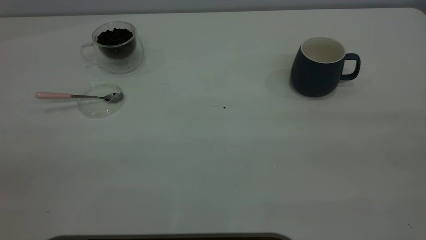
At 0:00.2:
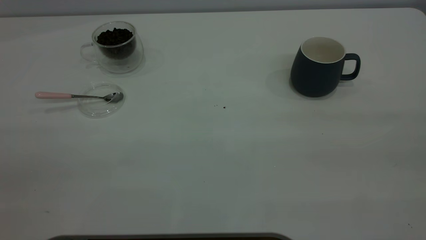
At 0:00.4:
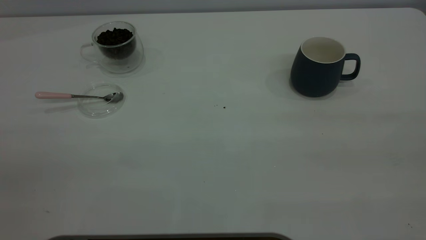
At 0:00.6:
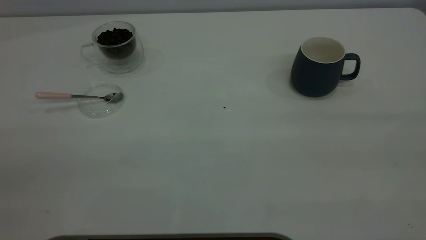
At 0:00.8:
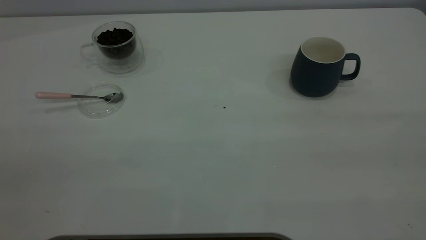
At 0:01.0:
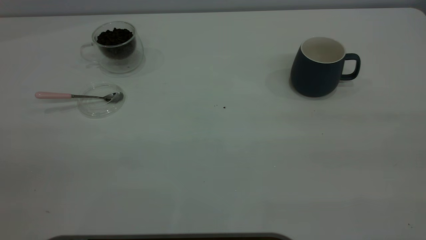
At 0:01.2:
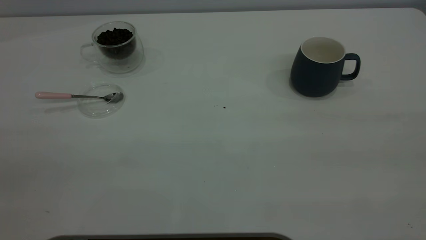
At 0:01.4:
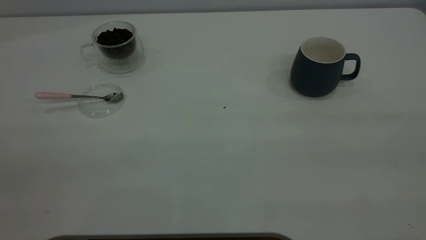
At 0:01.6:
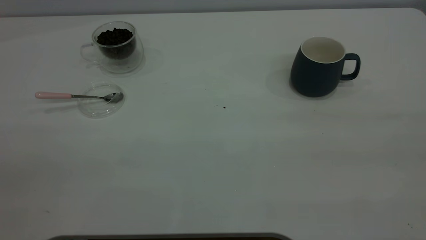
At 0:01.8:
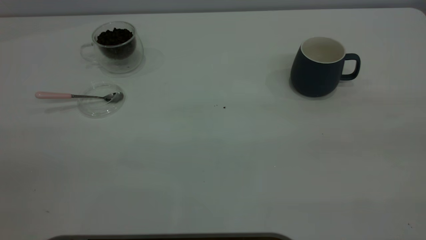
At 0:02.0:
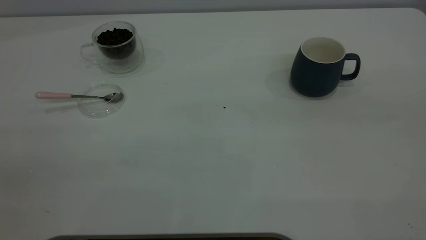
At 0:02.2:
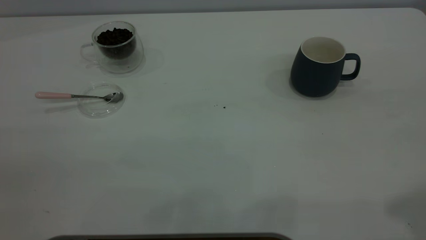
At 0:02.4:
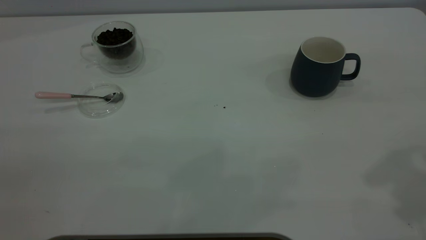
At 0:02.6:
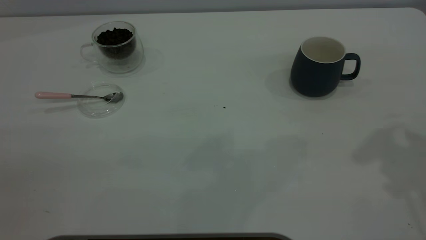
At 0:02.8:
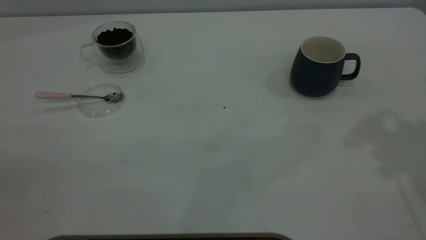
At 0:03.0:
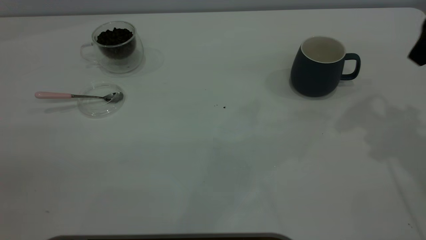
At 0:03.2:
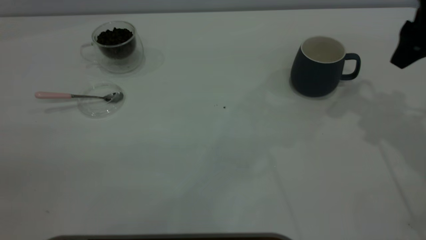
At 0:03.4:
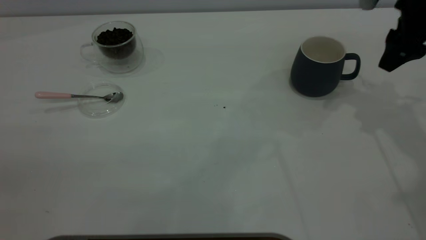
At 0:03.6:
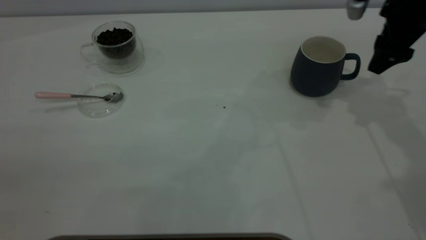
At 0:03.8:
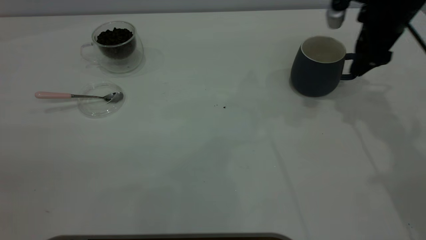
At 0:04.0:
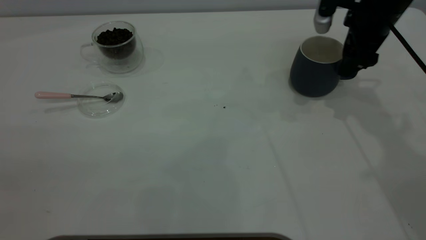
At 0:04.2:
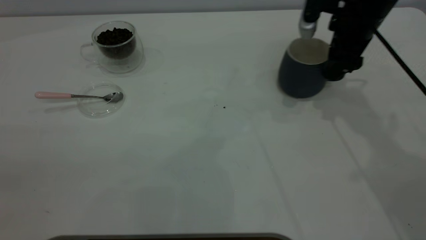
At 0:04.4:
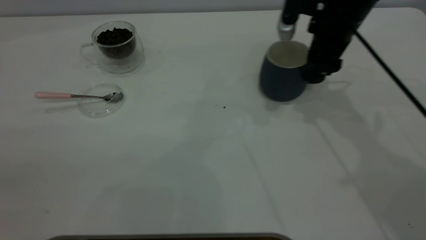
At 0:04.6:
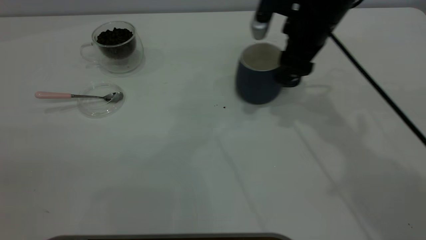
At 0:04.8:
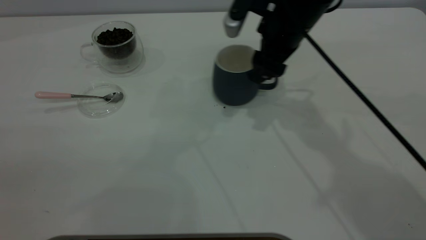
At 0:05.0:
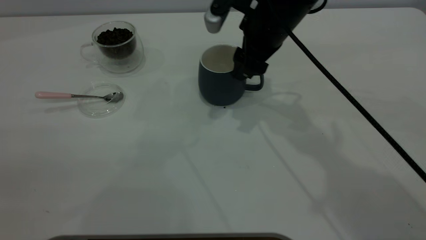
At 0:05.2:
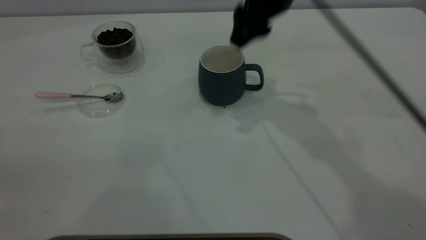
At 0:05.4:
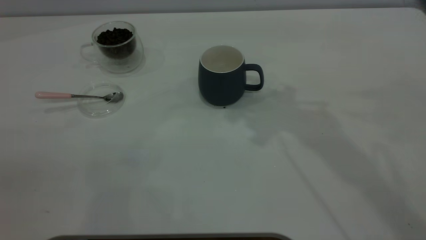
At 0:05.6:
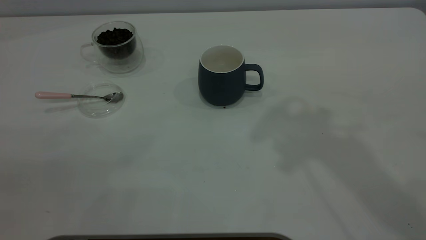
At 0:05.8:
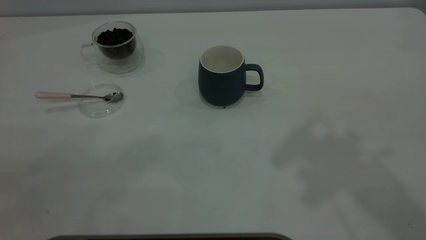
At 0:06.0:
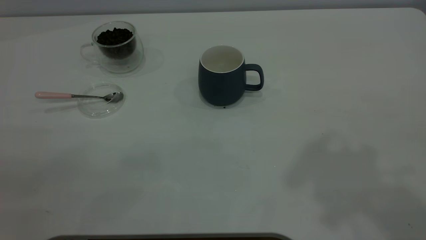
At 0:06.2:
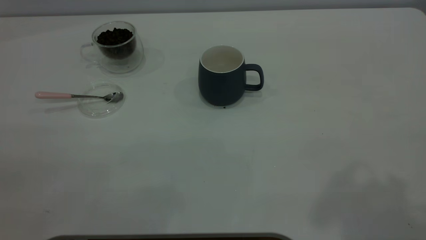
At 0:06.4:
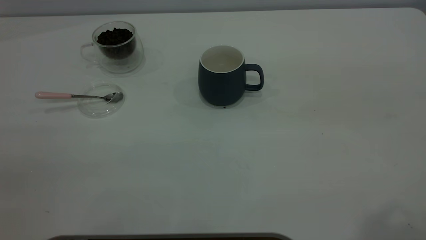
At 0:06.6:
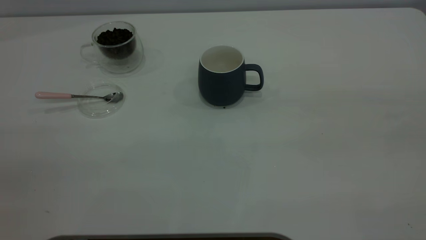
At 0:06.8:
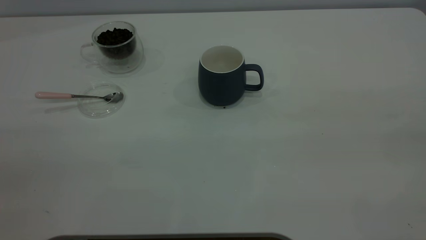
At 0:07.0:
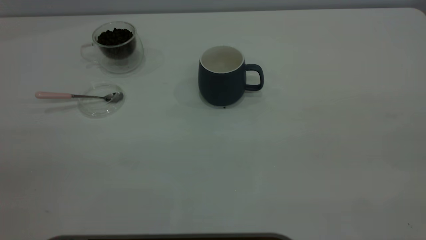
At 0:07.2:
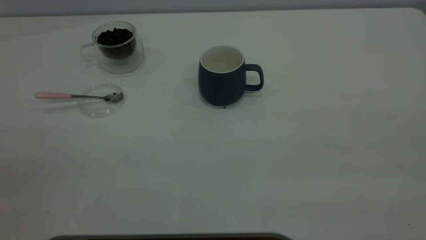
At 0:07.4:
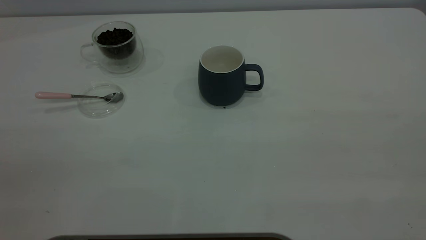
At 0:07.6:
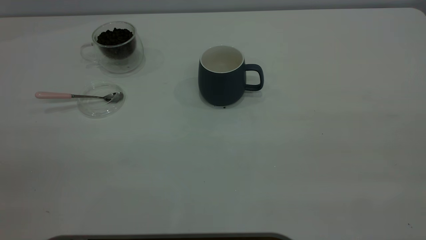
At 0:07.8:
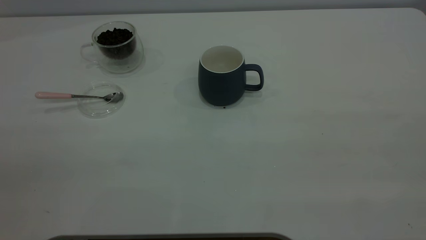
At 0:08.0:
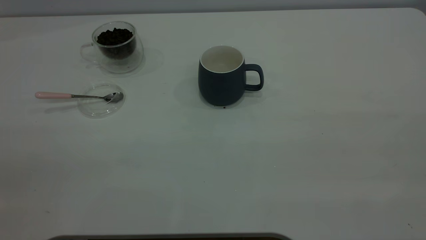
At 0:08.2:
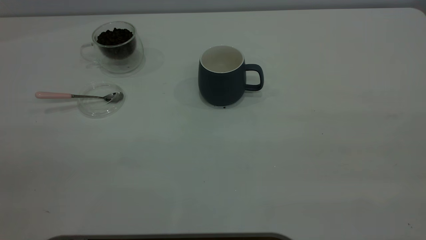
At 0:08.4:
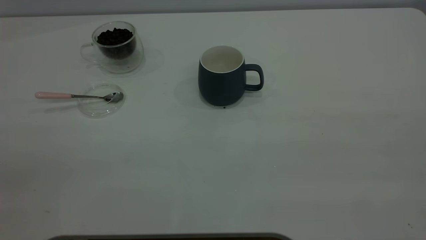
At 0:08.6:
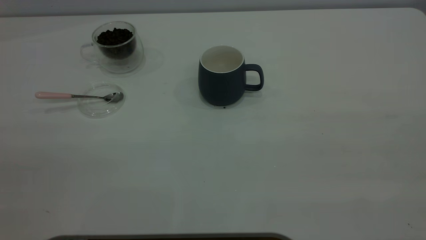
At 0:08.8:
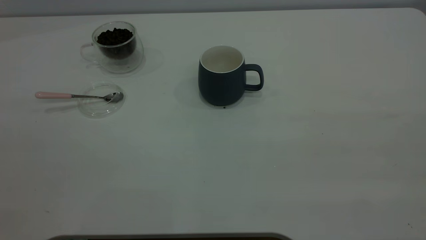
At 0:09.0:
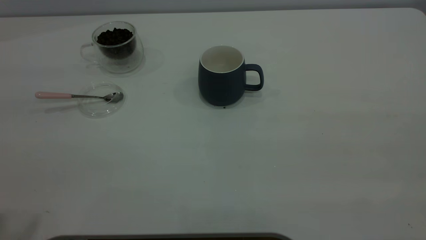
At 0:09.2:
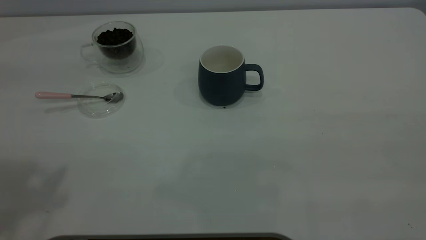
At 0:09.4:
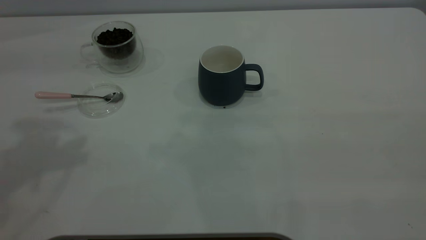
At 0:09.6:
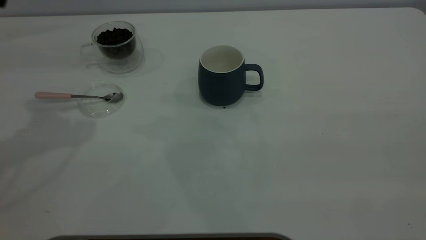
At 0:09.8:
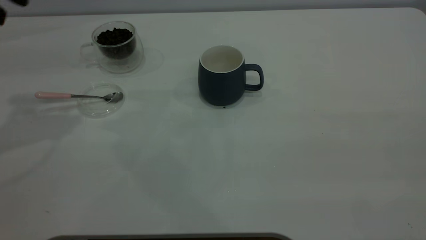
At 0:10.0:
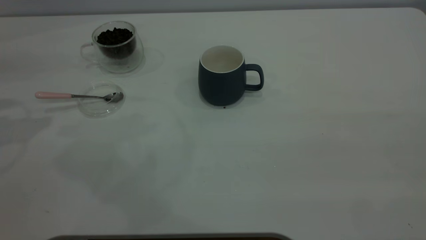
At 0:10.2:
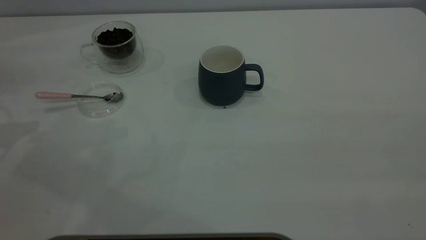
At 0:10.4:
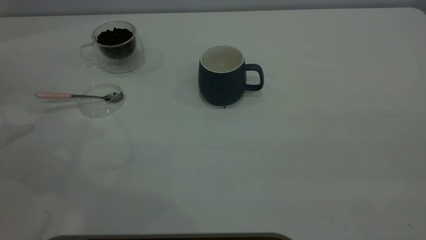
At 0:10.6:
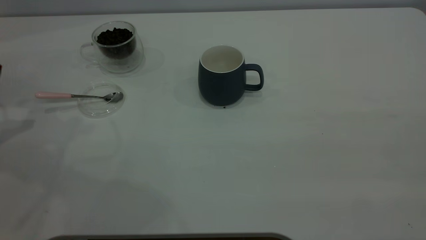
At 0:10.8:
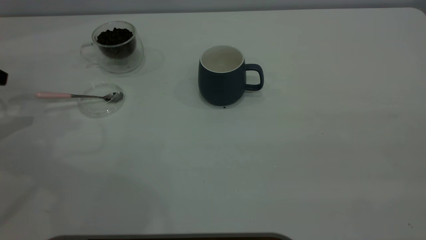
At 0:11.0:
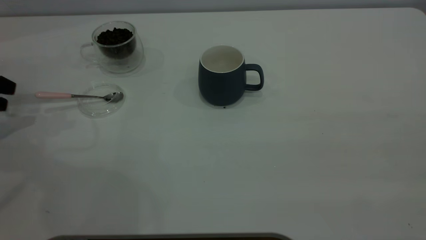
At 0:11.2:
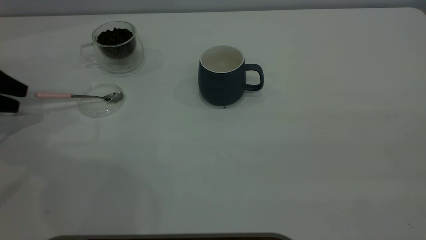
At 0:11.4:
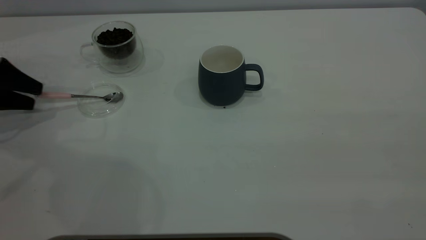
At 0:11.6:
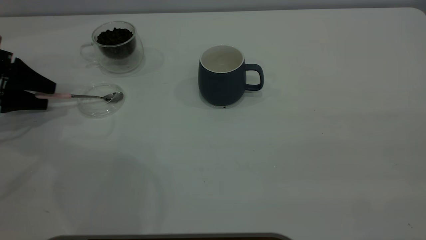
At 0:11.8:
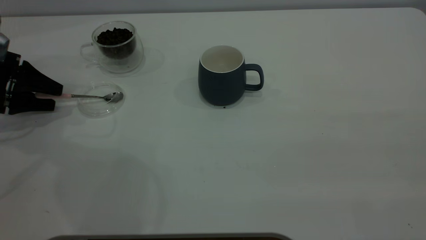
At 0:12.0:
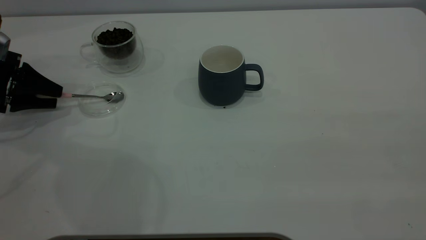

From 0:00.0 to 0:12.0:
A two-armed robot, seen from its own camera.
Task of the whole recording: the right gripper place the grey cup in the center of the table, the left gripper take the pink spoon from the cup lid and scoop out the coffee beans from the coffee cup and put them into the grey cup, the left gripper put the spoon back into the cup lid.
Step, from 0:00.0 to 0:05.0: Move the cup to the center of view.
From 0:00.0 to 0:01.6: The two grippers keep their place.
From 0:03.0 to 0:04.4: The right gripper heads to the left, downward and forward, covering approximately 15 cm.
From 0:04.4 to 0:06.0: The right gripper is displaced upward and backward by some 40 cm.
From 0:10.4 to 0:12.0: The left gripper is displaced downward and forward by roughly 10 cm, and closes up.

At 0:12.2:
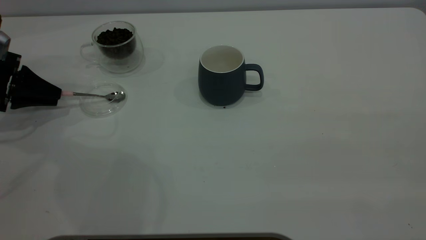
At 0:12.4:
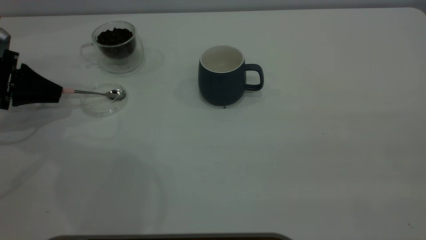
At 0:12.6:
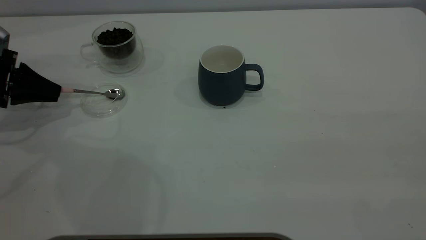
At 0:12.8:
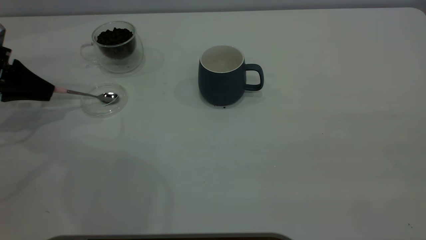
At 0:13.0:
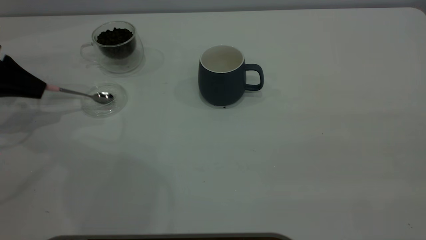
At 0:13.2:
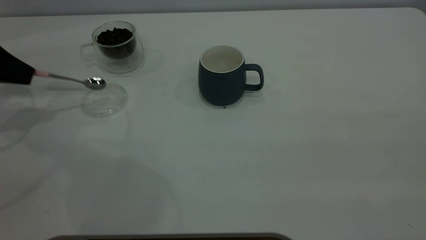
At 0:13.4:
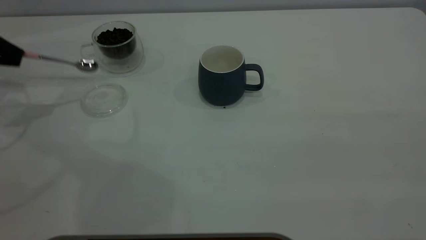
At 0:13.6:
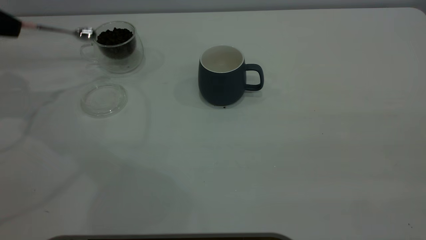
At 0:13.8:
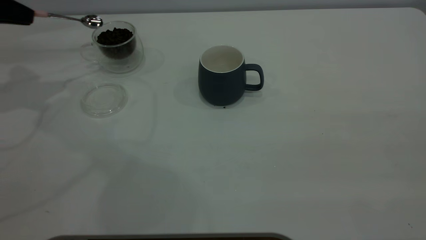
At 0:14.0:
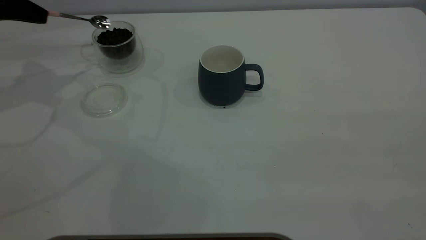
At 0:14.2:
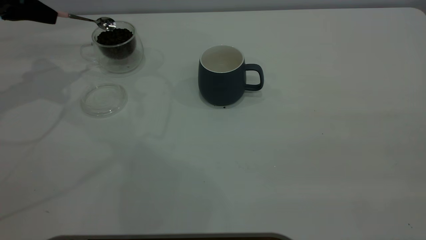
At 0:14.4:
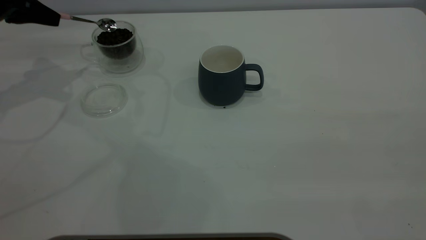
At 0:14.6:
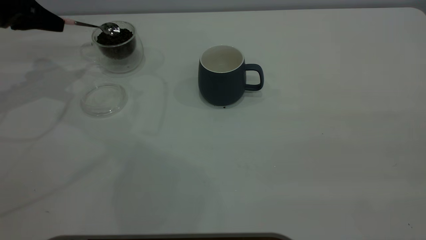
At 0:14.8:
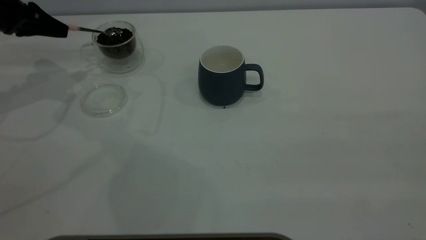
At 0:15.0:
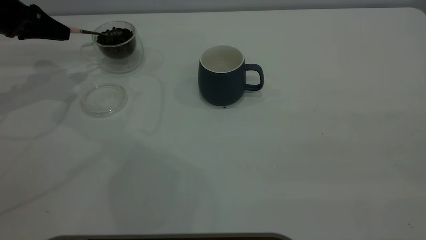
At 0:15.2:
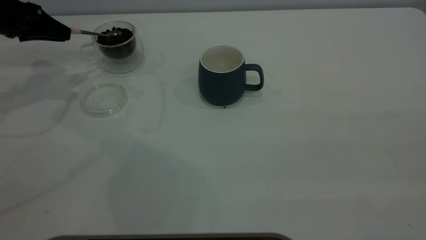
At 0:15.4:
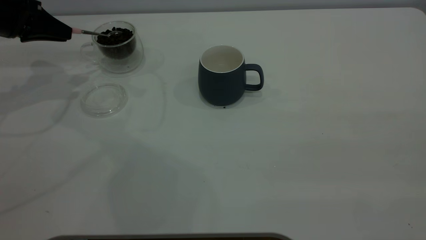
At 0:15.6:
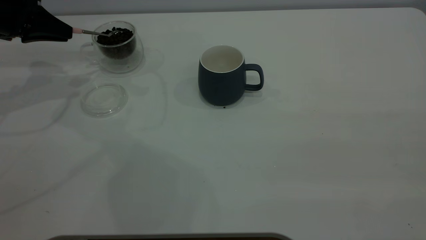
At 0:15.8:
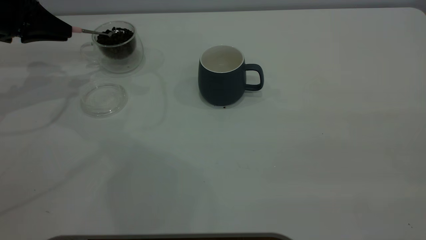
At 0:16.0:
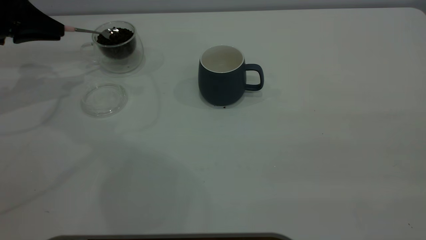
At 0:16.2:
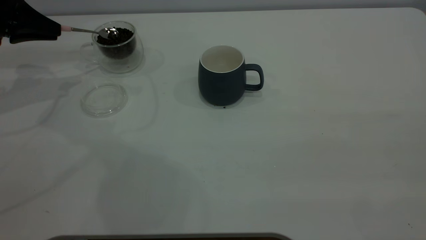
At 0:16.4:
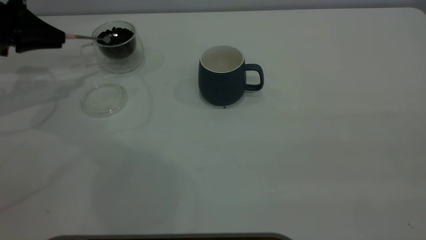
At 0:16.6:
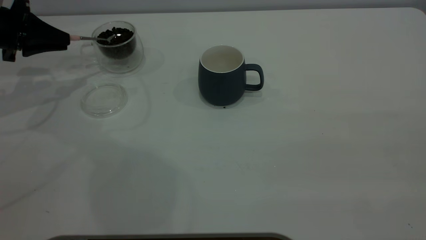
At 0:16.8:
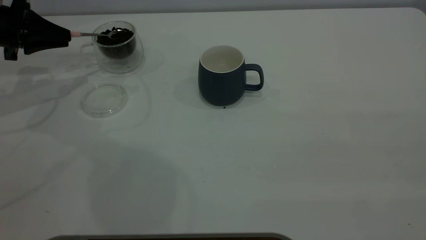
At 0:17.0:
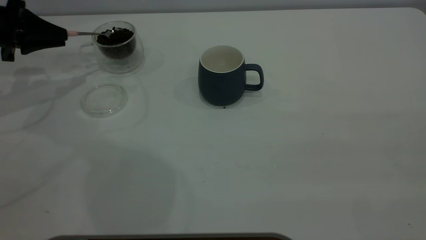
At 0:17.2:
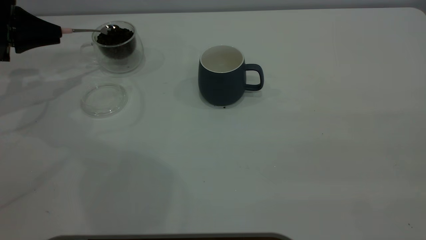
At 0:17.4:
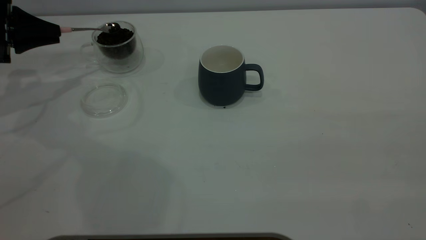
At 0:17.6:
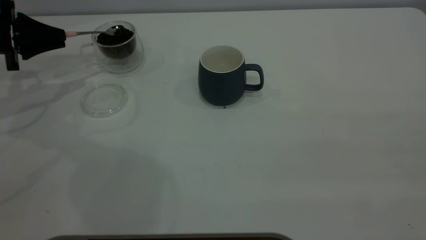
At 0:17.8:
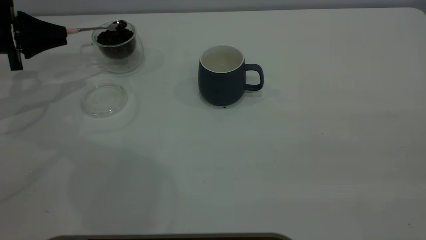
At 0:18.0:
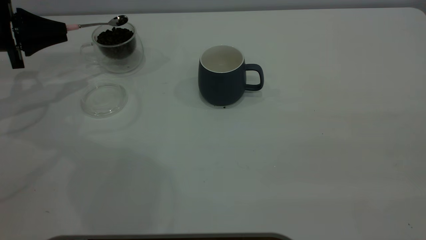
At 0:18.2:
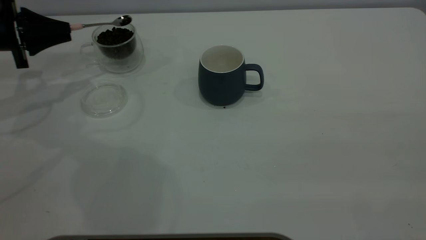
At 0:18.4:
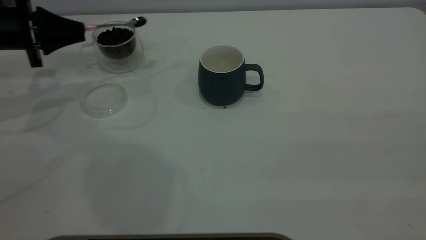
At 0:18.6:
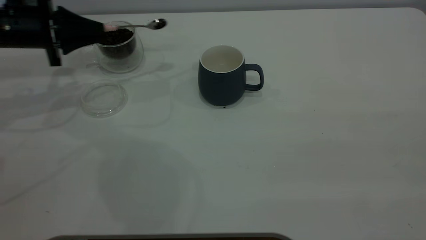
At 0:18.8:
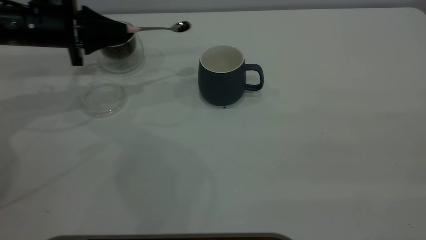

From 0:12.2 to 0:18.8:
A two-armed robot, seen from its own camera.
Task of the whole recording: the right gripper place the grey cup in the center of the table, the left gripper take the pink spoon from the cup lid and scoop out the coffee beans from the coffee cup and put them into the grey cup, the left gripper put the spoon back into the cup lid.
From 0:12.2 to 0:13.8: The left gripper shifts some 15 cm upward.
From 0:13.8 to 0:15.4: The left gripper moves about 5 cm.
From 0:17.2 to 0:18.8: The left gripper is displaced to the right by about 10 cm.
